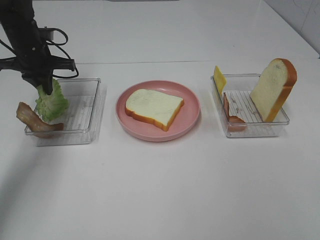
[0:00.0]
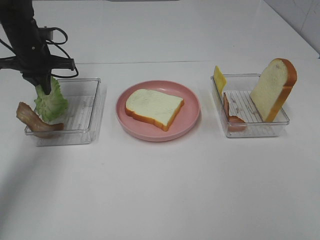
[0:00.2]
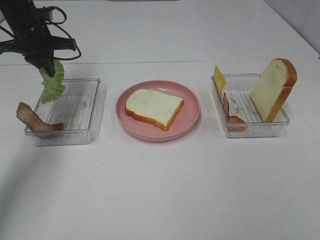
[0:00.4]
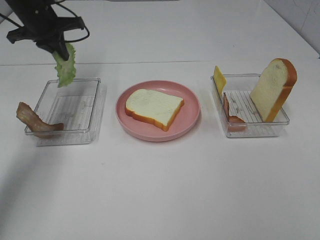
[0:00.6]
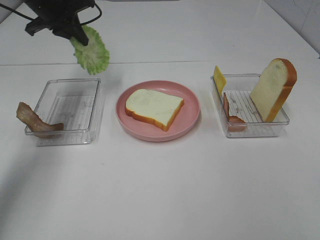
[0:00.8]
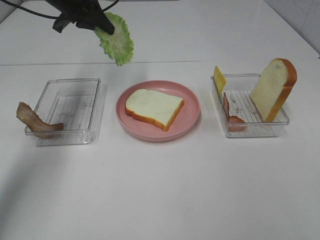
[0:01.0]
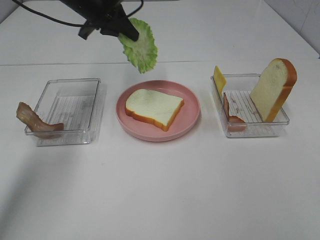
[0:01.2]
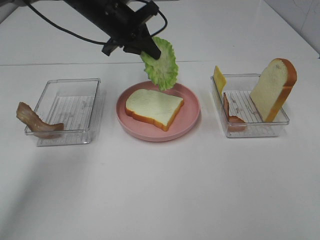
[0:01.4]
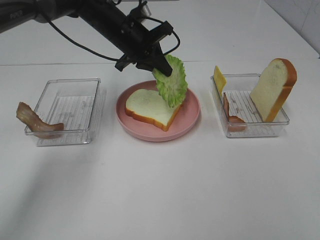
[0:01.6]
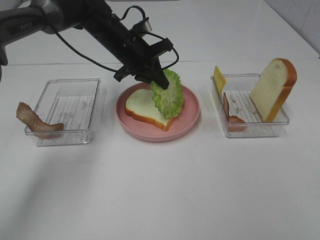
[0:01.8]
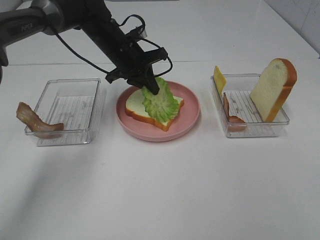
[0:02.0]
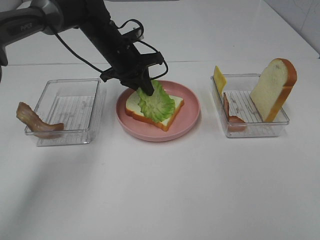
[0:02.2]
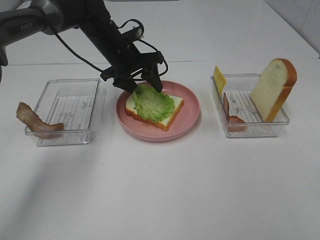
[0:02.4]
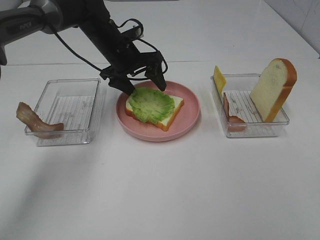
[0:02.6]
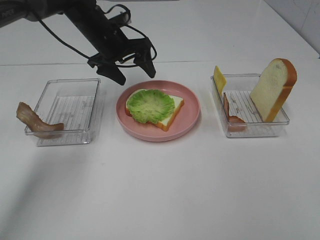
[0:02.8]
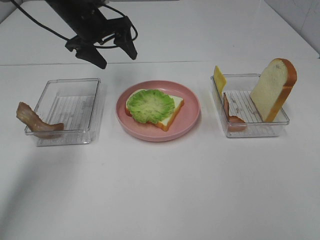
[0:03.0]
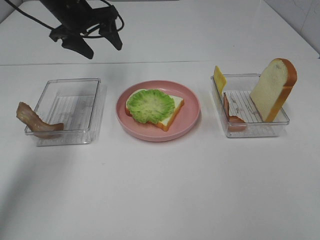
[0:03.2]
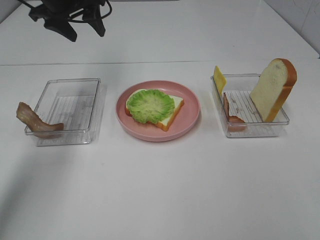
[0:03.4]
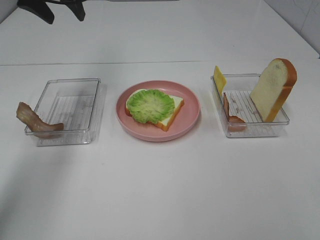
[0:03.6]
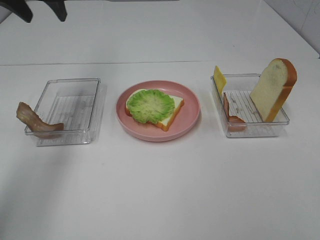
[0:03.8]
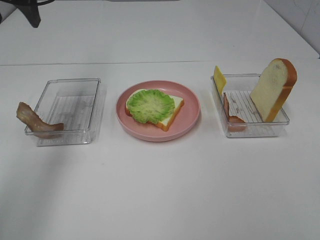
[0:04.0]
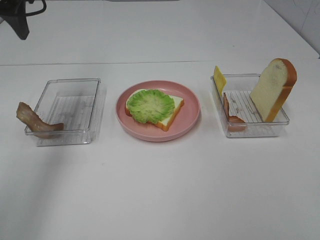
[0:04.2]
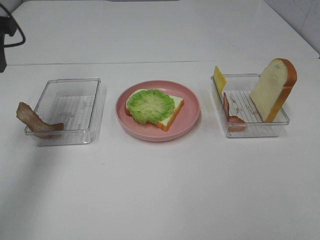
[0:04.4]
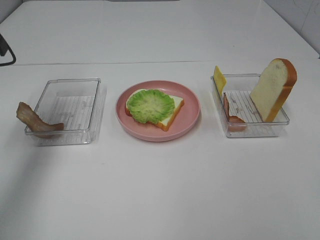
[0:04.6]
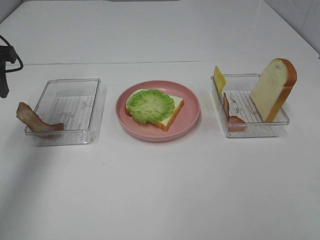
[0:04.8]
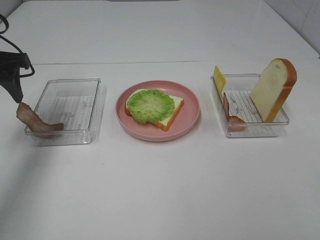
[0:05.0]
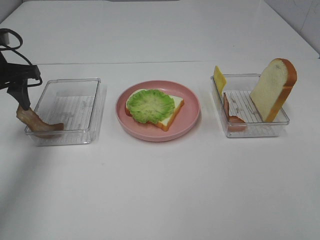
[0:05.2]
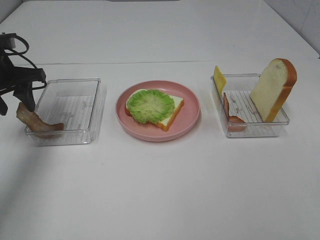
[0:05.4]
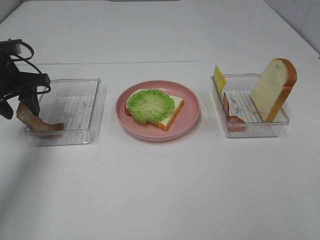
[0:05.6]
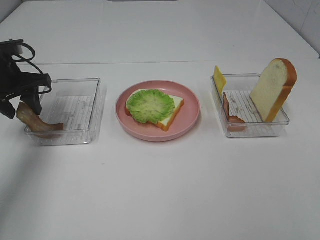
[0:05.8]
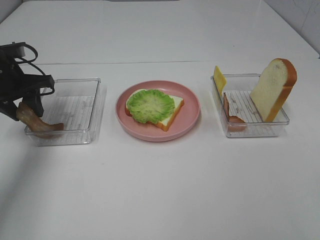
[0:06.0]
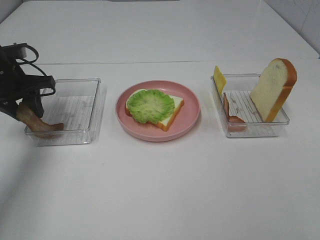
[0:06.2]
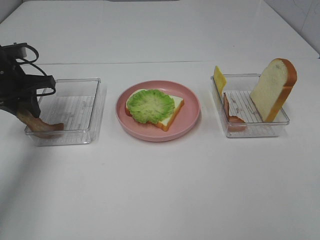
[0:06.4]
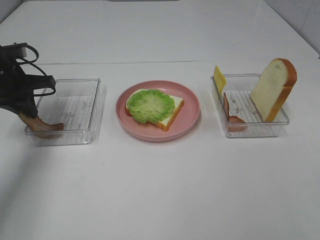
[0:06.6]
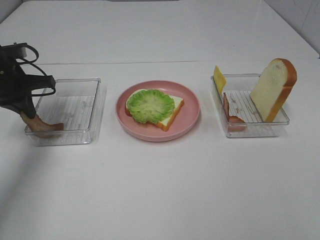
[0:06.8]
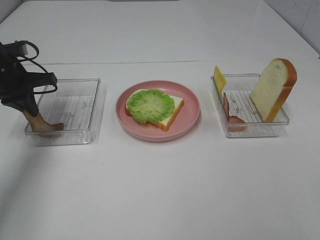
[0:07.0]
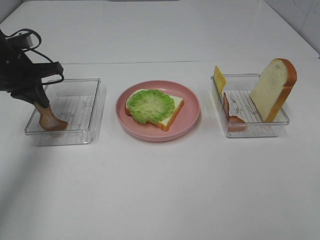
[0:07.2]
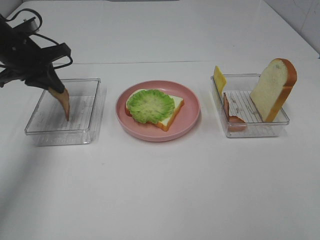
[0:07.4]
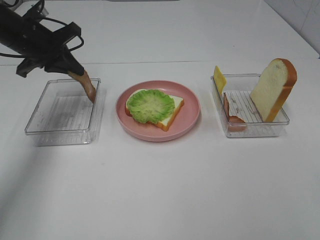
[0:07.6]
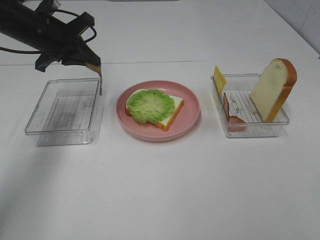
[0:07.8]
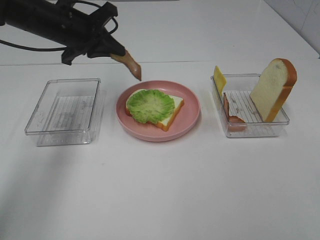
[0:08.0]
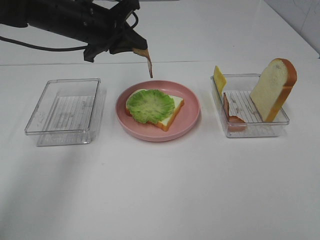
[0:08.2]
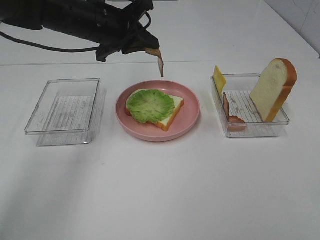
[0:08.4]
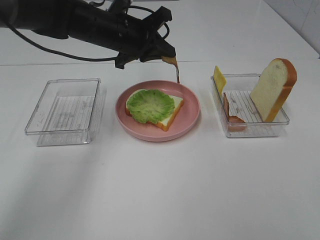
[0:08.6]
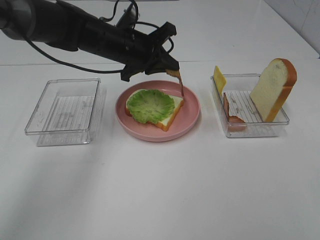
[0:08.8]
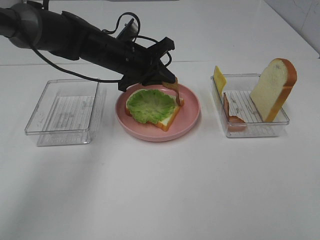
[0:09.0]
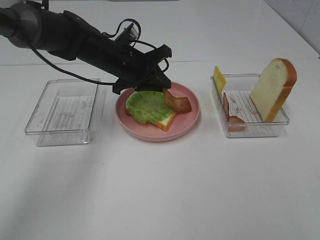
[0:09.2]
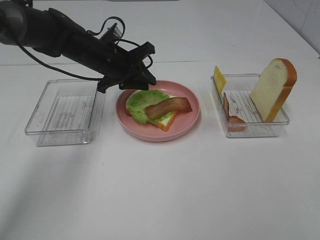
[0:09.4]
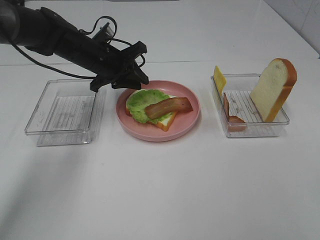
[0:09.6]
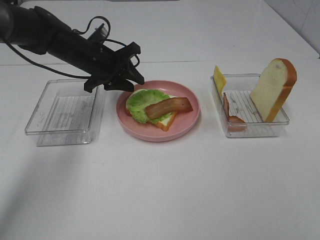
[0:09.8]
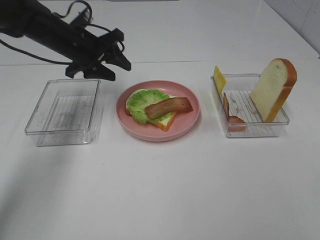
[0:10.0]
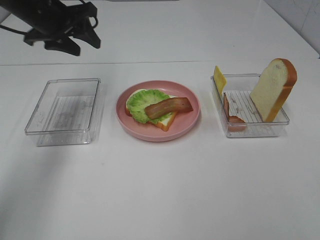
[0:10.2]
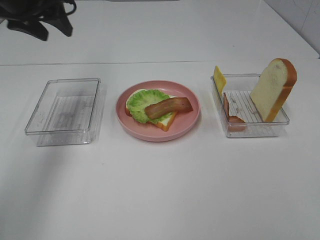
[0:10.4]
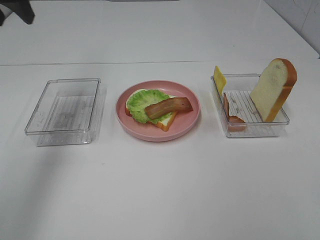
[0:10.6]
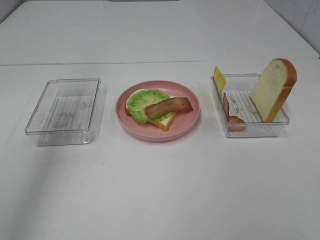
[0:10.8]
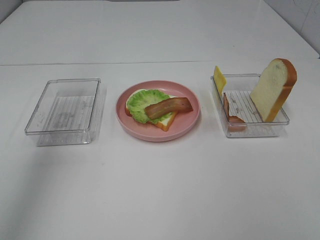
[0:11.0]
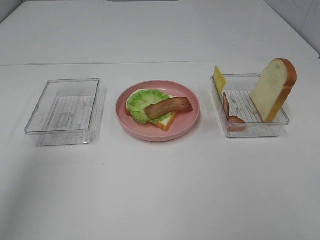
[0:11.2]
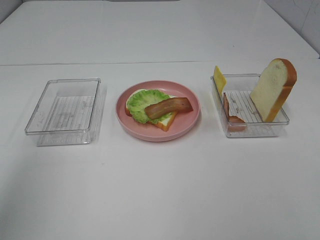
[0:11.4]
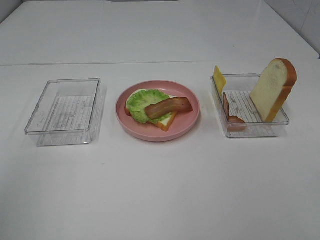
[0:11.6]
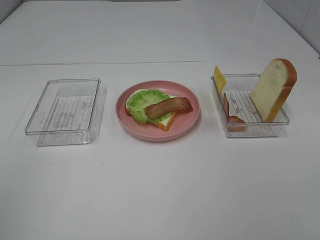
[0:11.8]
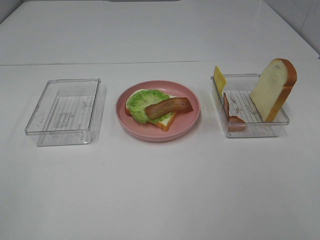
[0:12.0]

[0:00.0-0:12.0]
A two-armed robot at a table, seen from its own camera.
Task of the whole recording: Make sandwiches.
Step, 0.4 to 2.6 s: Left hand:place the lettuce slice on the bread slice.
Step, 2.8 to 6.8 s: Left hand:grab the bacon.
Step, 7.0 to 9.8 s: Left hand:place bacon on lettuce slice.
0.0 to 1.6 s: The left gripper is displaced to the right by about 20 cm.
1.6 to 3.0 s: The left gripper travels to the left by approximately 10 cm, and opens.
3.0 to 4.4 s: The left gripper is displaced backward, to the left and upward by roughly 20 cm.
4.4 to 6.0 s: The left gripper moves downward, about 15 cm.
6.0 to 7.6 s: The left gripper is displaced to the right by approximately 5 cm, and closes up.
7.6 to 9.0 s: The left gripper travels to the right by approximately 15 cm.
9.0 to 10.4 s: The left gripper is displaced upward and to the left by about 20 cm, and opens.
10.4 to 12.0 s: The left gripper is displaced backward by some 40 cm.

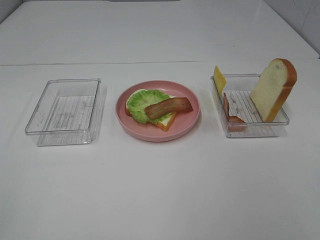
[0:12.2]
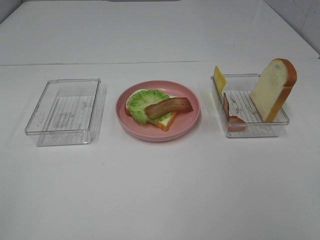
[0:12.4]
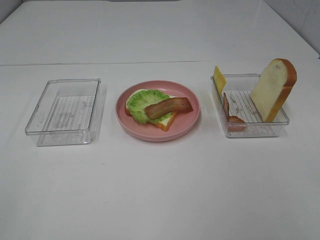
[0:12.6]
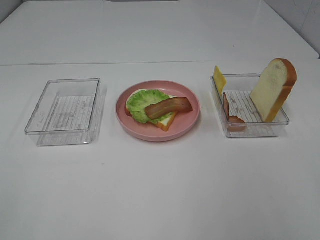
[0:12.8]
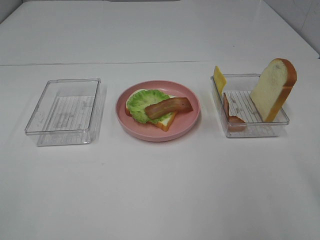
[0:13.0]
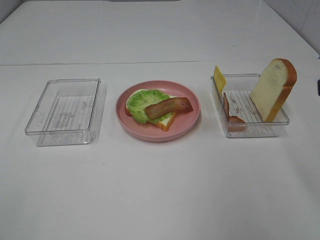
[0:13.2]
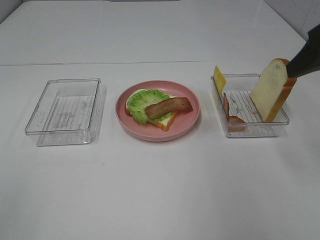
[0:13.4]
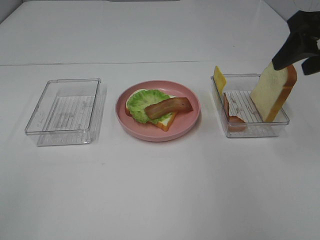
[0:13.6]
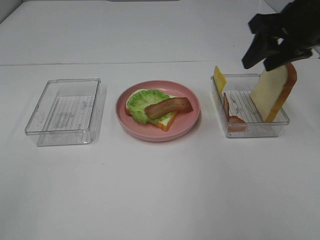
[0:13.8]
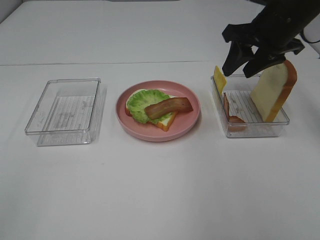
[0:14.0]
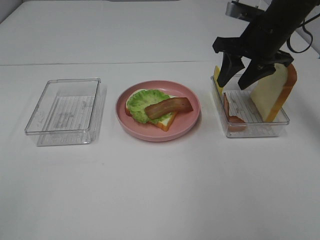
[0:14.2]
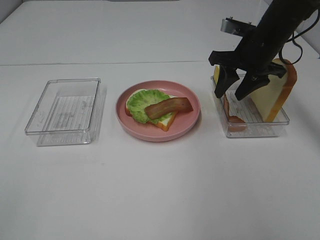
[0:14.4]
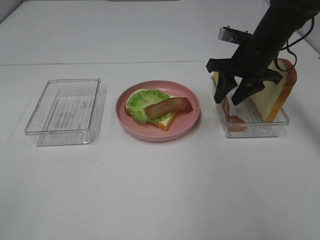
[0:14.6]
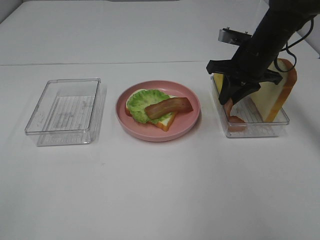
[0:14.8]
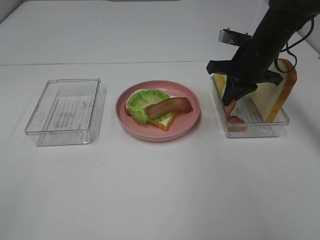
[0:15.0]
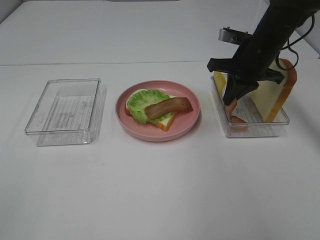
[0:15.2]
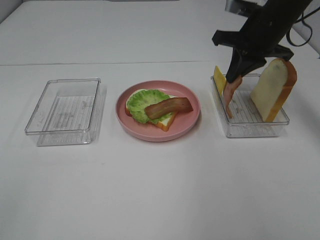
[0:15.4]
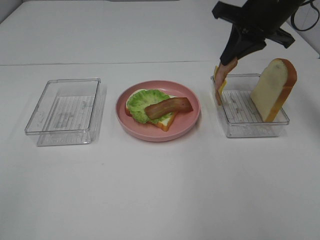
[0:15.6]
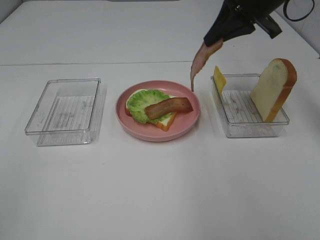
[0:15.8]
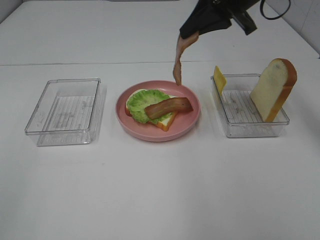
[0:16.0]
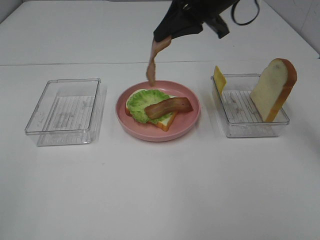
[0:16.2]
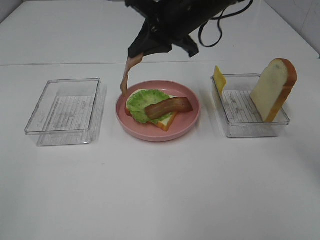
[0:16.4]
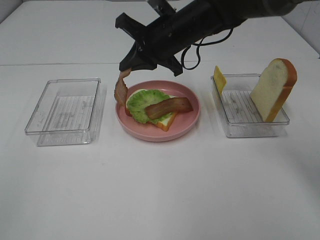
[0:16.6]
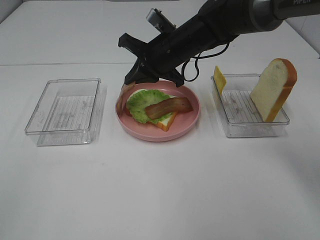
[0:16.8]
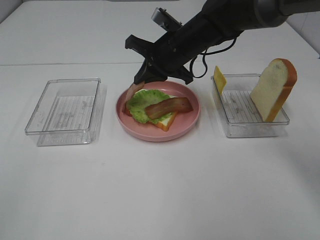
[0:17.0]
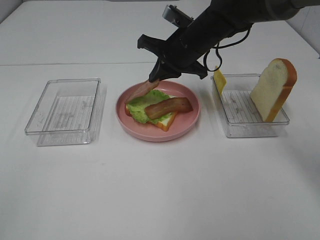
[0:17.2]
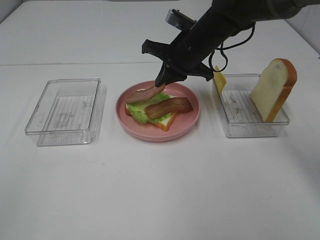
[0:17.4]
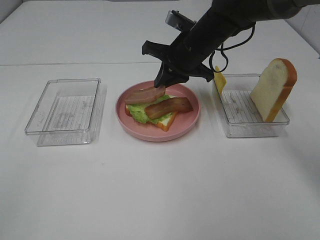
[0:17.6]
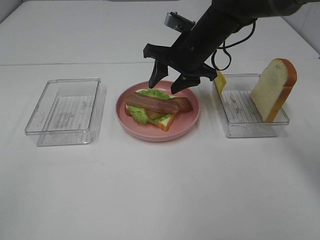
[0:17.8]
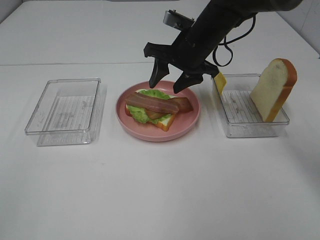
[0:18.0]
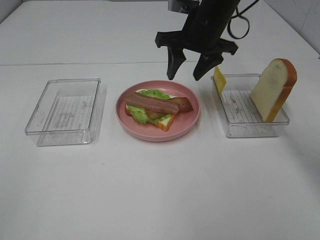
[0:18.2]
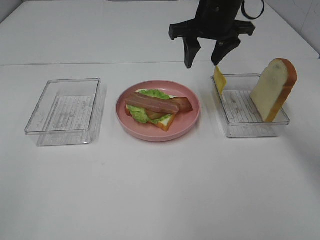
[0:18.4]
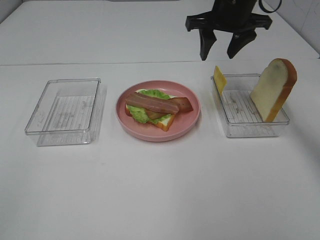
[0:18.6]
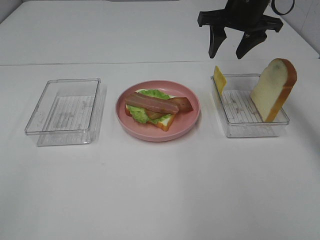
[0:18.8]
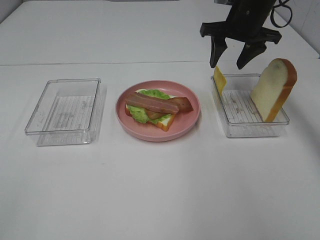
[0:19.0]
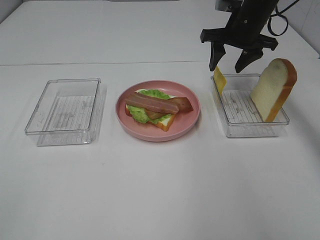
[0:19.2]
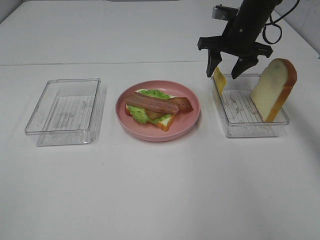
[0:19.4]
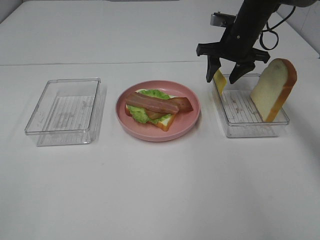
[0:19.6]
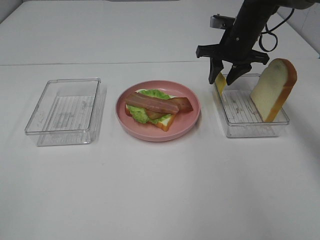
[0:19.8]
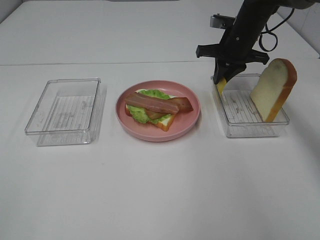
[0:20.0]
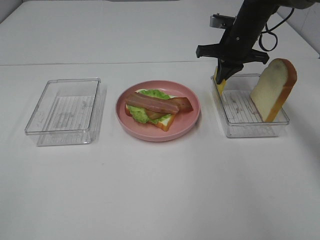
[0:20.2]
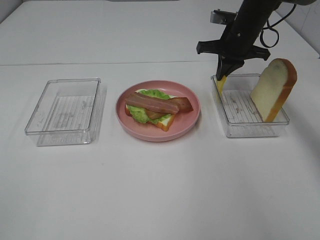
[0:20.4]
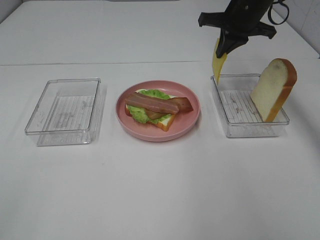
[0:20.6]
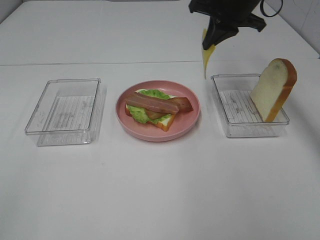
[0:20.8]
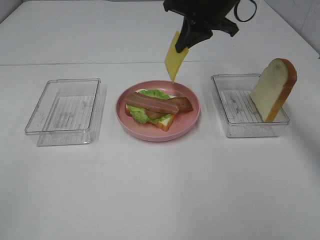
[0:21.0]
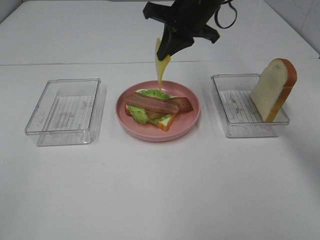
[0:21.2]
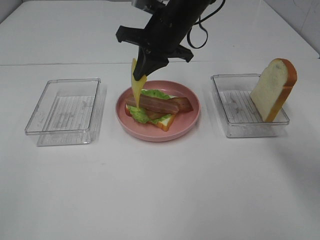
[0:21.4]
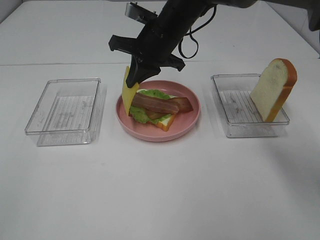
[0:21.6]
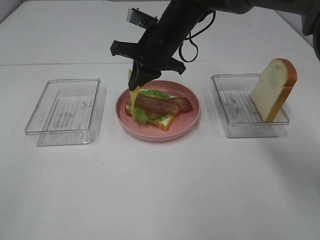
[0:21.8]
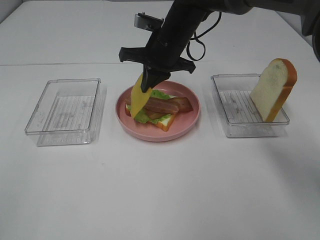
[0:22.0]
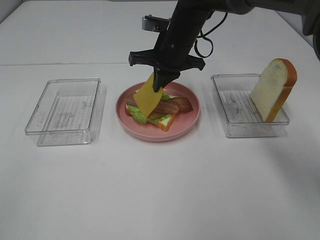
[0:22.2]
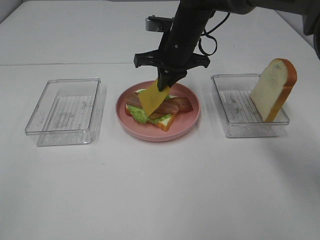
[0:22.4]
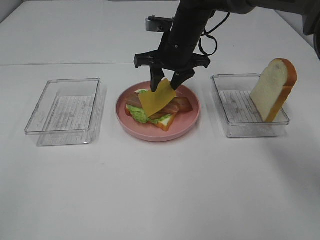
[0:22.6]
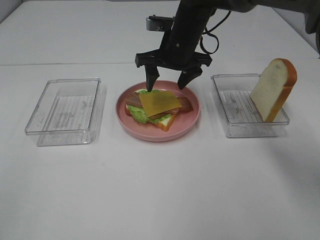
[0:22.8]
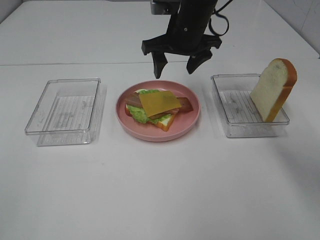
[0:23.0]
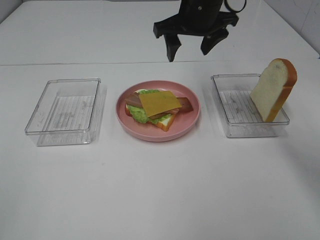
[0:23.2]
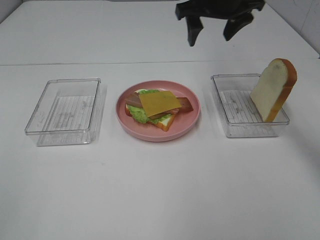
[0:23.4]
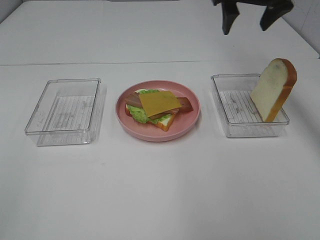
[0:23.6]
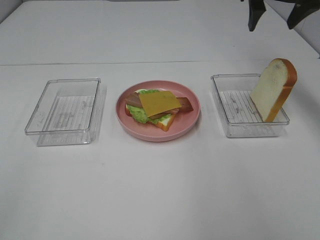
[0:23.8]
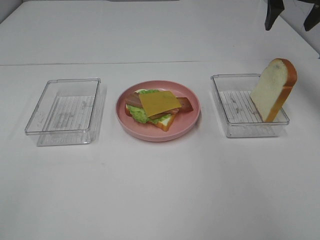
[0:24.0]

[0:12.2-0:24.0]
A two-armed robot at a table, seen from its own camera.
Task of the whole recording: Make sandwiches.
Step, 12.2 to 15.2 s: Right hand:grab the bacon.
Step, 13.8 to 17.8 s: Right hand:place bacon on bacon.
Step, 18.0 to 20.0 s: Right hand:grab the cheese slice.
Step, 20.2 to 23.0 s: Right hand:place the cheese slice on top of the bacon.
12.2 to 13.6 s: The right gripper is displaced forward by roughly 30 cm.
13.6 to 15.2 s: The right gripper heads downward, forward and to the left, covering roughly 20 cm, and closes its fingers.
15.2 to 16.6 s: The right gripper is displaced to the left by about 15 cm.
16.6 to 18.2 s: The right gripper travels to the right by about 5 cm, and opens up.
18.2 to 19.6 s: The right gripper heads to the right, forward and downward, covering approximately 10 cm.
19.6 to 21.0 s: The right gripper is displaced upward and to the left by approximately 10 cm, and closes.
21.0 to 22.6 s: The right gripper goes approximately 10 cm downward and to the left, and opens.
22.6 to 24.0 s: The right gripper shifts about 25 cm to the right and upward.
